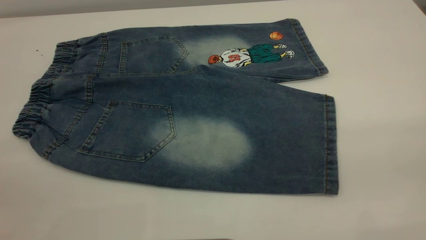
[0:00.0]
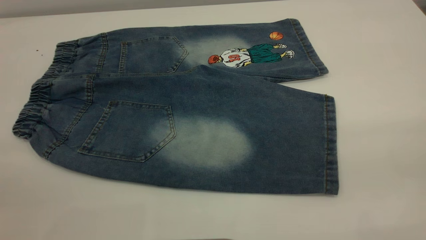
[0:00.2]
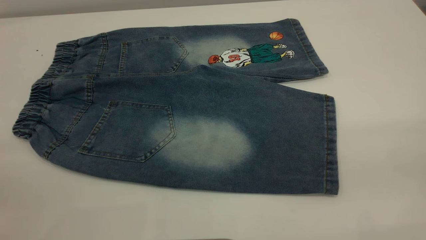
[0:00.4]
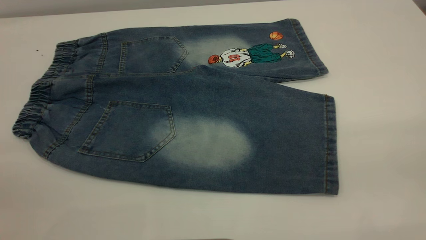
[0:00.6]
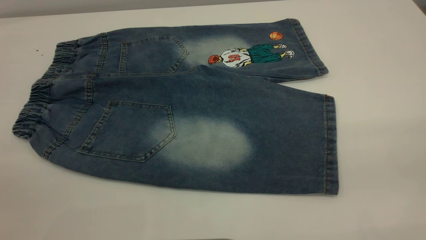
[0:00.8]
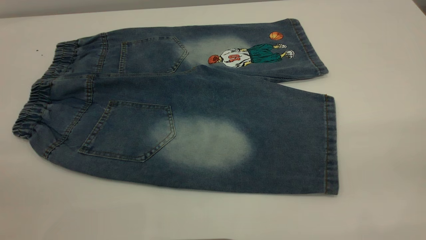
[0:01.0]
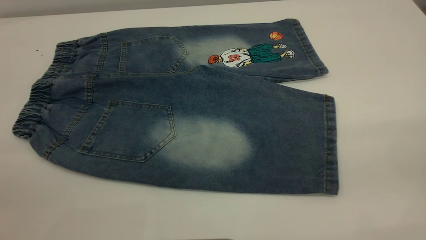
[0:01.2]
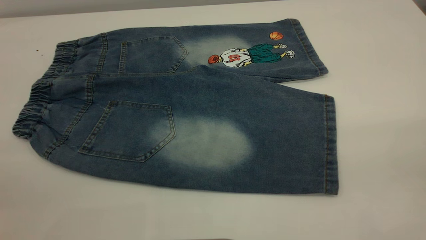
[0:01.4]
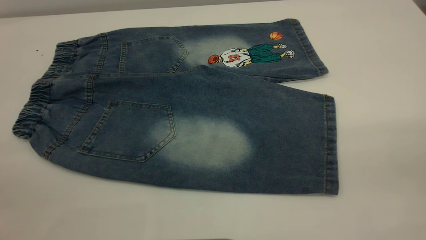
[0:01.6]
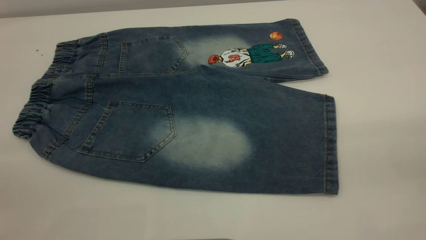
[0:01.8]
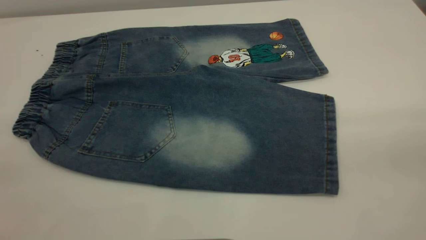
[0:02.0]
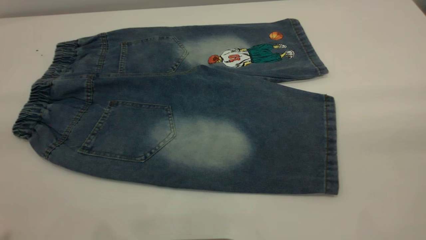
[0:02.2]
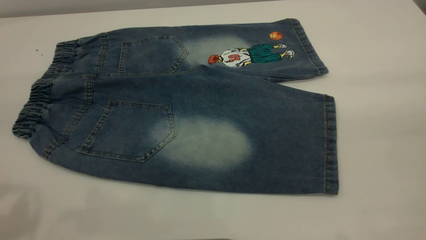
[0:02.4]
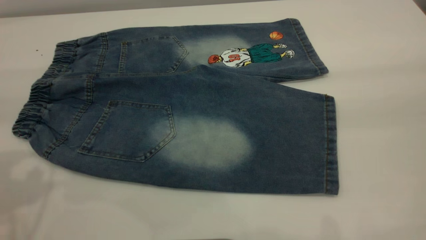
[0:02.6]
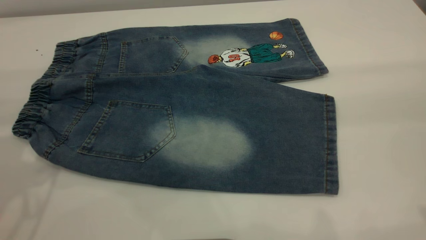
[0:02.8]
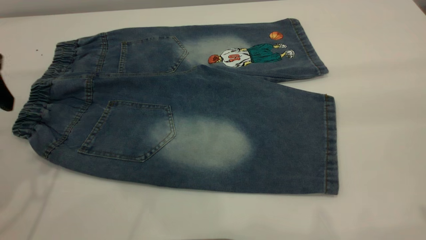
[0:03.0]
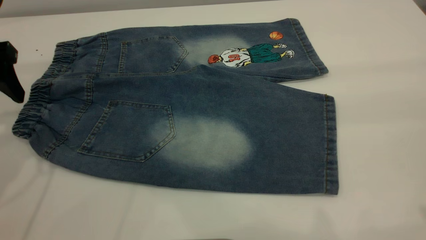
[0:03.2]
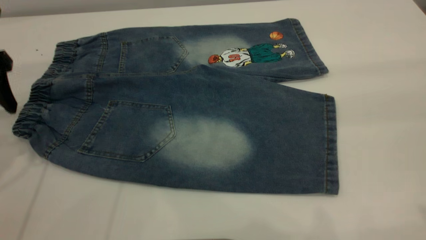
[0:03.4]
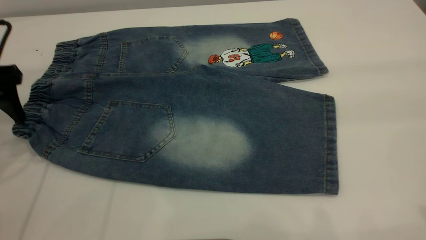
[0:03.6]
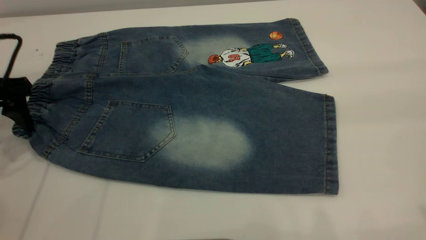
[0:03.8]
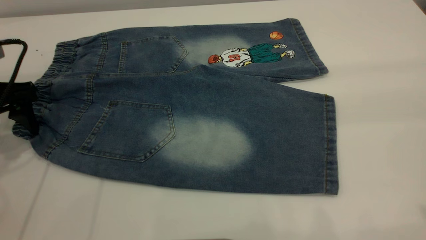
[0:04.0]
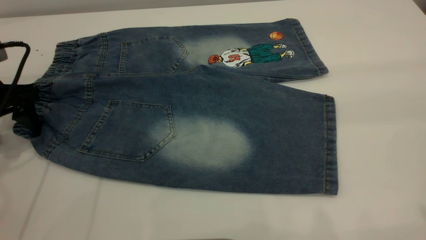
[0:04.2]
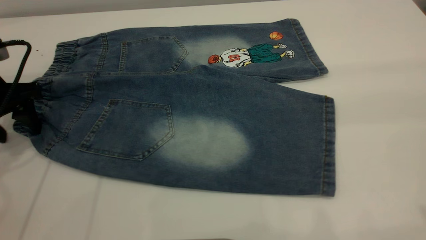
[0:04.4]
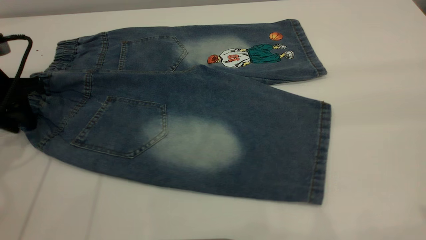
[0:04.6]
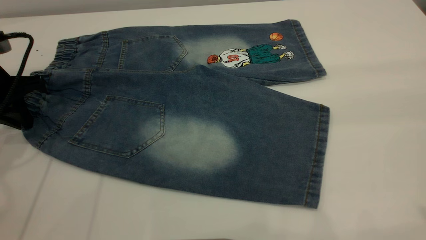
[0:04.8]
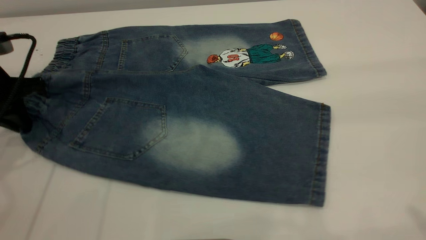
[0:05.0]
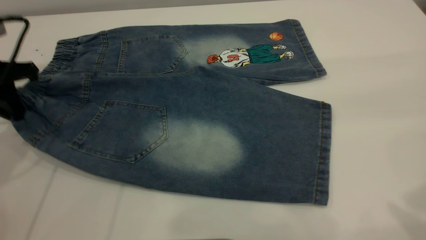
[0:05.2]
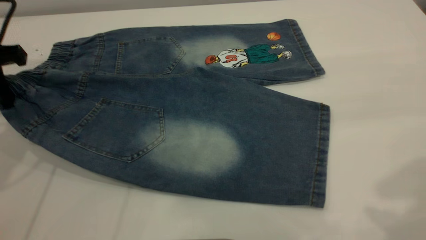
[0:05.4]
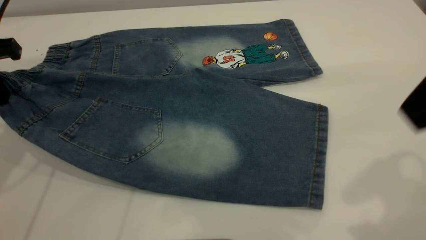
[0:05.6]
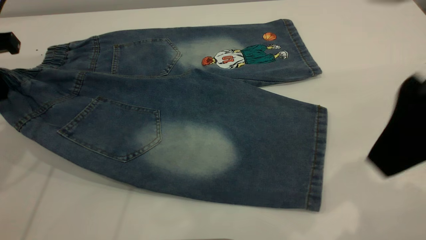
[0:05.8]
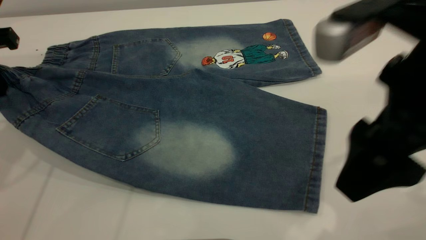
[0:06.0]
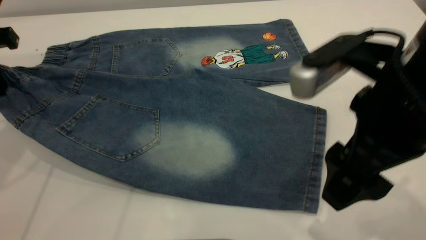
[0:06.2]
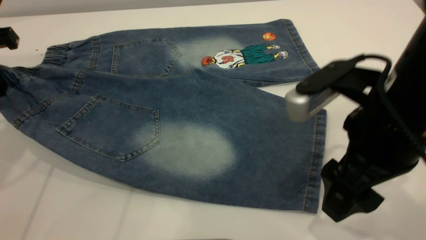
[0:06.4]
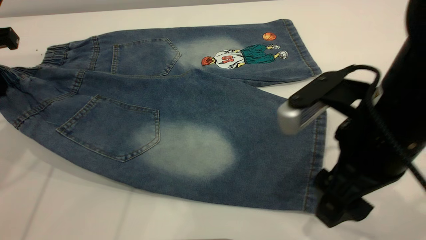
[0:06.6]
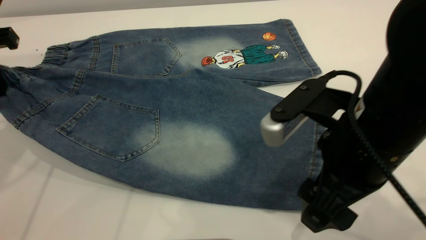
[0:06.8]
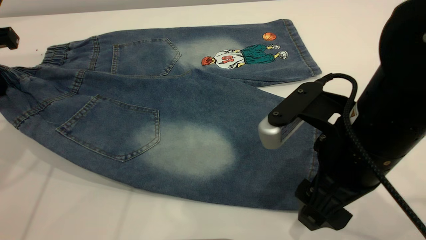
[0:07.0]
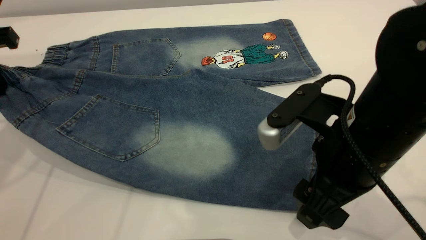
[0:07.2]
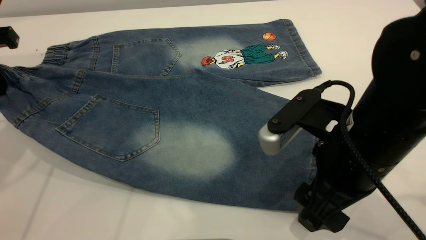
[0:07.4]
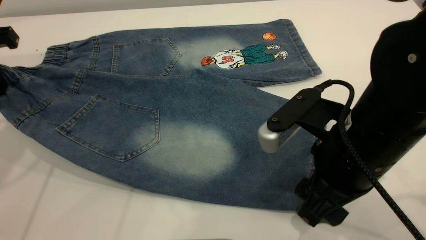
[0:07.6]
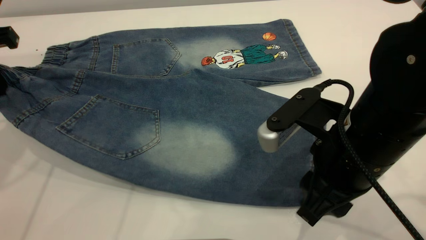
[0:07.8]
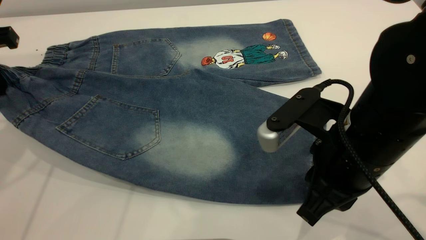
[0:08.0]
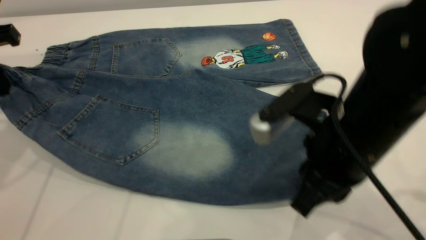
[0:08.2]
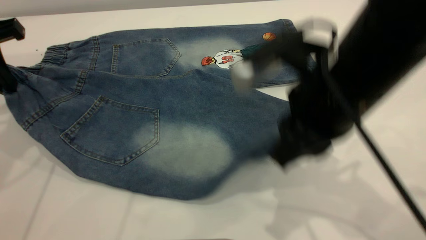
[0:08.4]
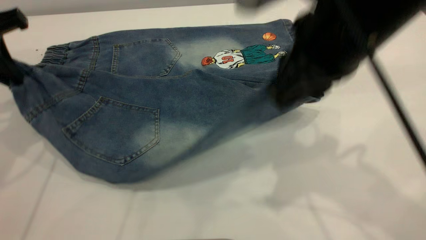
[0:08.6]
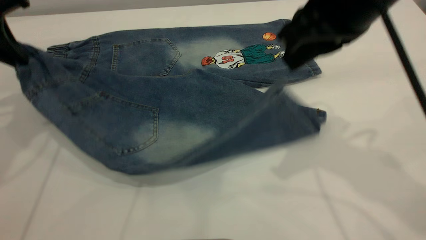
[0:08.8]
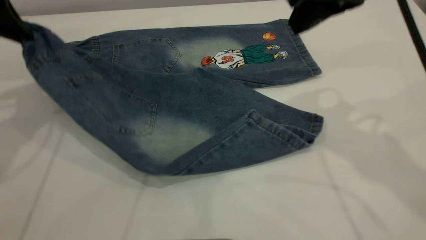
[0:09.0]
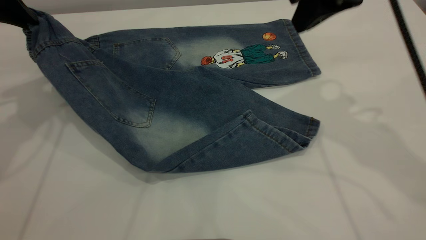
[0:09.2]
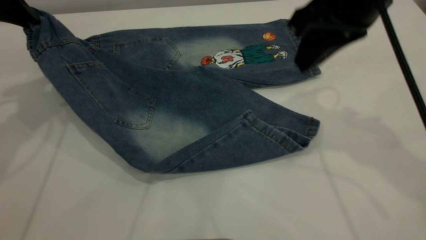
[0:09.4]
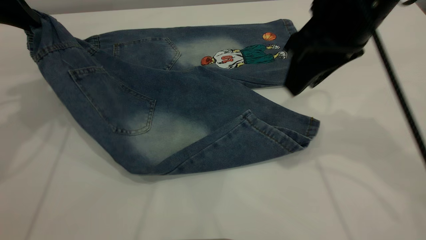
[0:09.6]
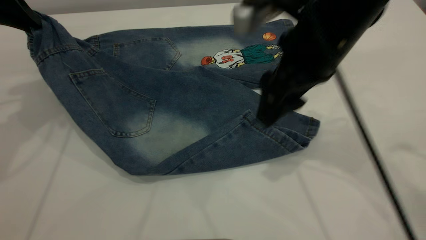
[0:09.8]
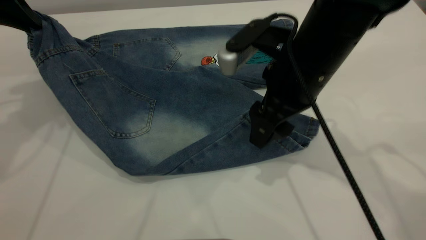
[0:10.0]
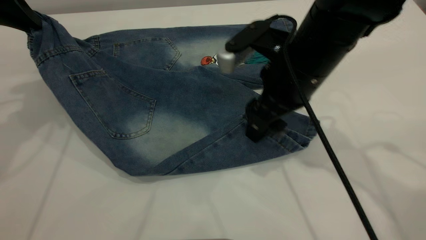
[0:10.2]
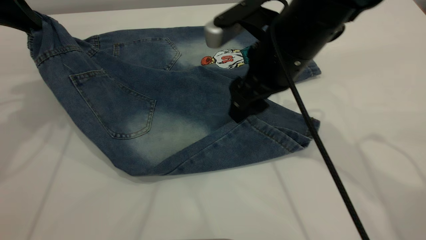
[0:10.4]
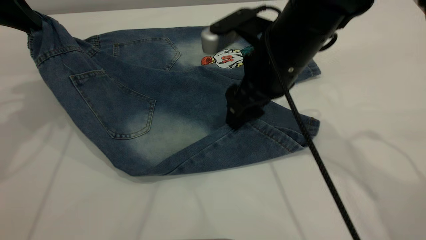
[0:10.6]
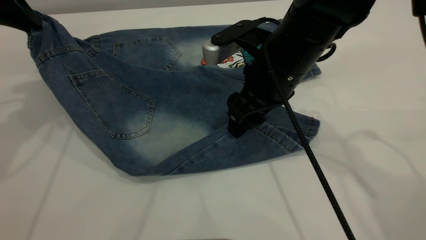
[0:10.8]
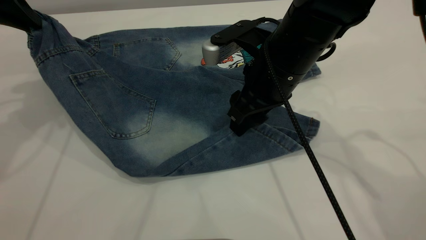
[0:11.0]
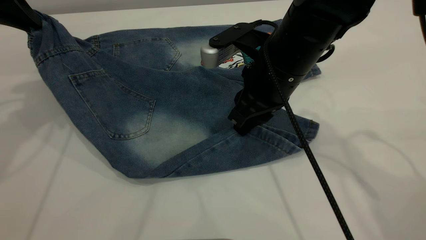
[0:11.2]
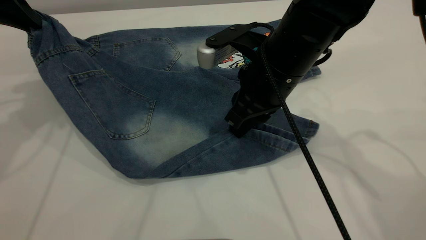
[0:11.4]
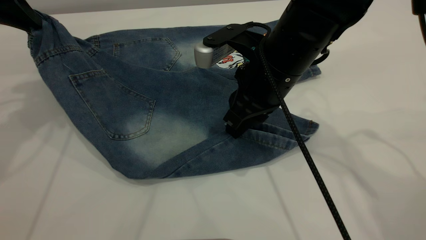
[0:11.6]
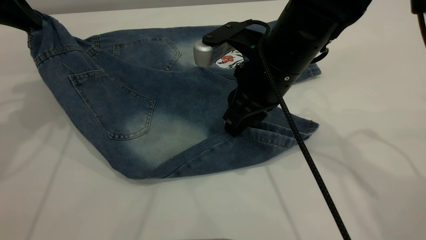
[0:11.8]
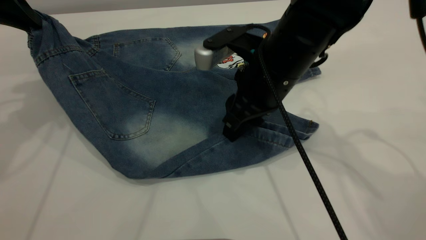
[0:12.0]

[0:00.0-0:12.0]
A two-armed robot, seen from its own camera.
0:00.0 to 0:01.6: Neither gripper changes place.
0:01.6 to 0:03.0: The left gripper goes about 30 cm forward and downward.
0:03.0 to 0:04.4: The left gripper goes some 10 cm downward and forward.
0:04.4 to 0:06.0: The right gripper moves downward, to the left and forward, about 20 cm; the left gripper travels upward by approximately 10 cm, and closes.
0:06.0 to 0:07.6: The right gripper shifts about 10 cm downward.
0:07.6 to 0:09.0: The right gripper travels upward and forward by approximately 20 cm, and closes up. The left gripper ends up some 5 cm from where it was.
0:09.0 to 0:10.4: The right gripper is displaced downward and to the left by roughly 15 cm, and opens.
0:10.4 to 0:12.0: The right gripper closes up.

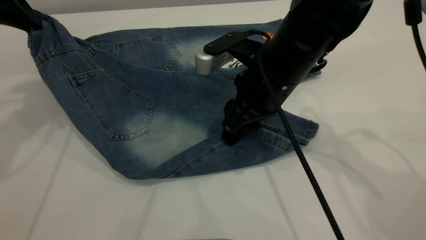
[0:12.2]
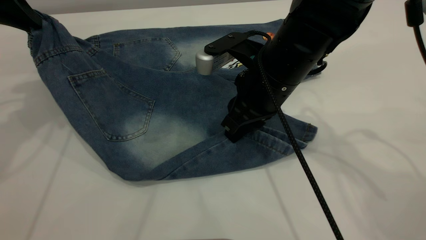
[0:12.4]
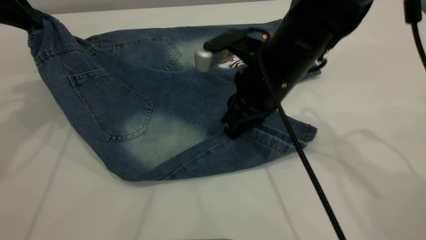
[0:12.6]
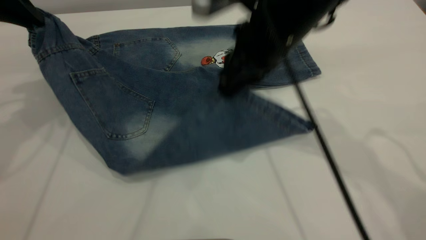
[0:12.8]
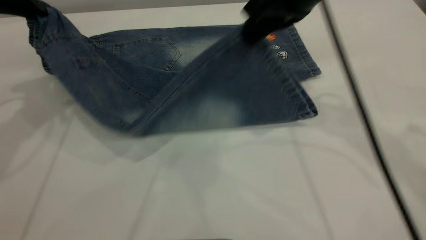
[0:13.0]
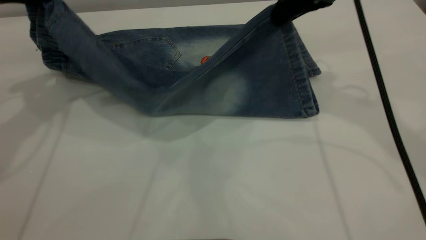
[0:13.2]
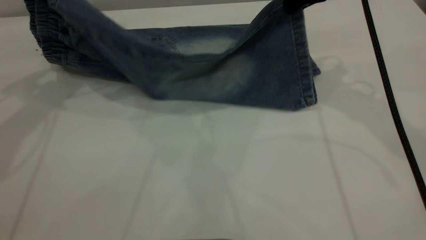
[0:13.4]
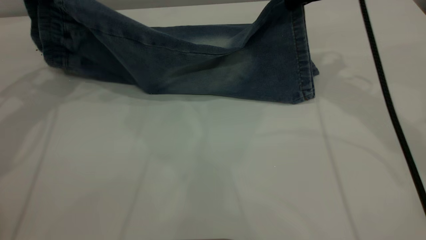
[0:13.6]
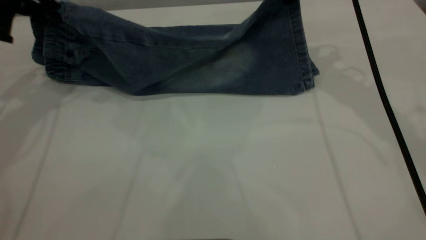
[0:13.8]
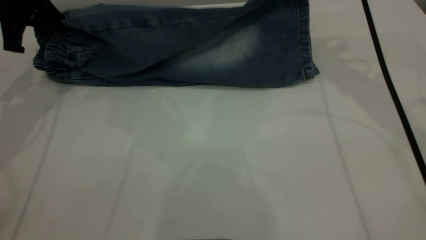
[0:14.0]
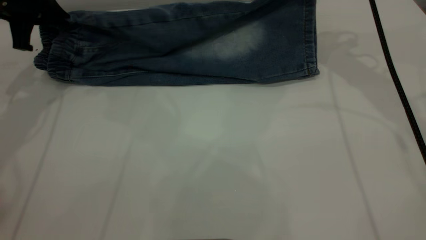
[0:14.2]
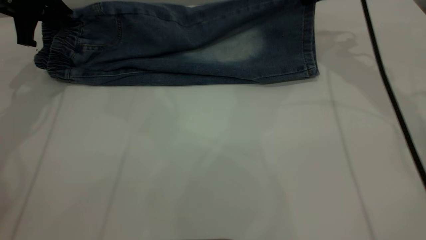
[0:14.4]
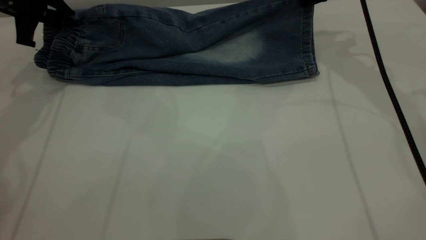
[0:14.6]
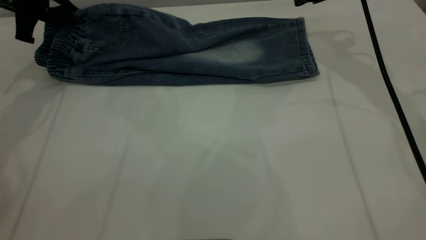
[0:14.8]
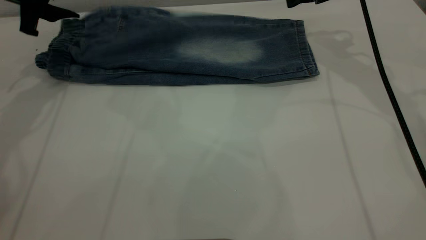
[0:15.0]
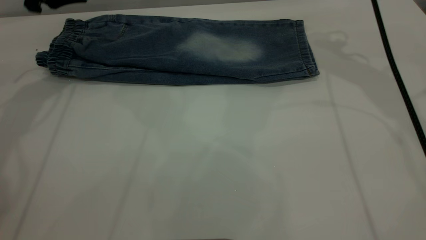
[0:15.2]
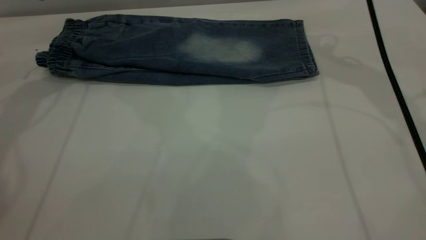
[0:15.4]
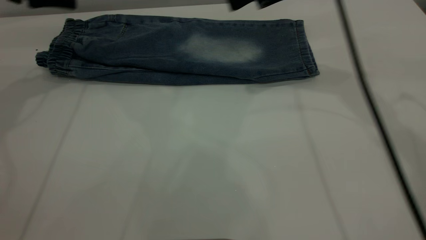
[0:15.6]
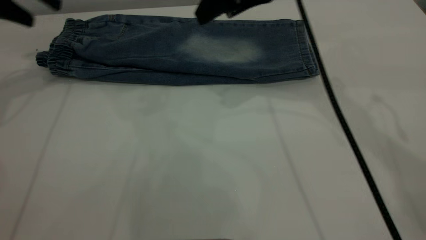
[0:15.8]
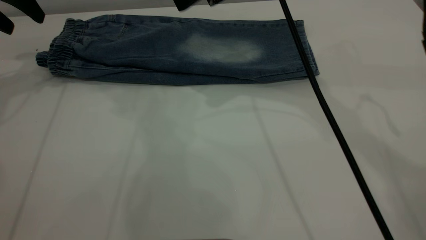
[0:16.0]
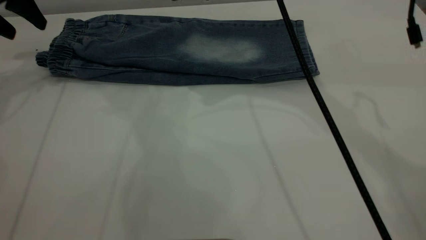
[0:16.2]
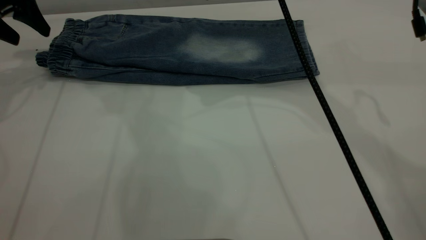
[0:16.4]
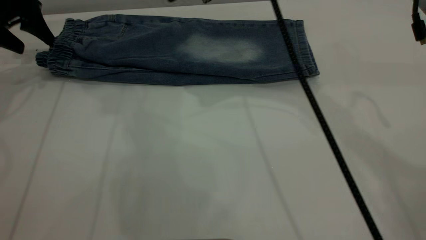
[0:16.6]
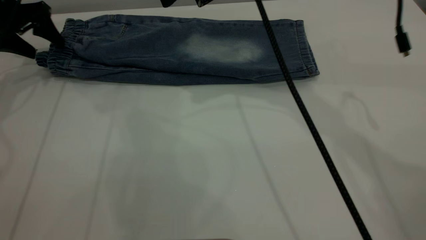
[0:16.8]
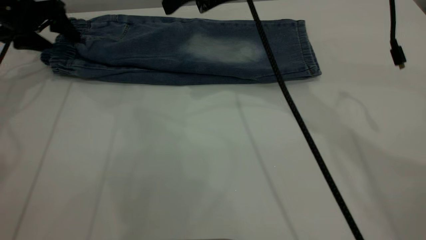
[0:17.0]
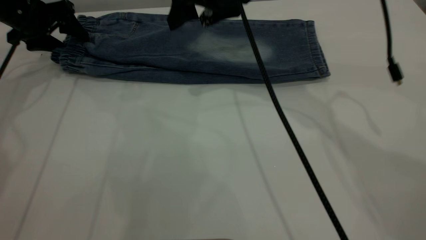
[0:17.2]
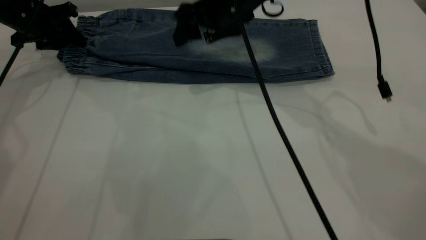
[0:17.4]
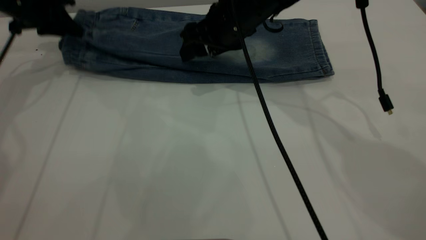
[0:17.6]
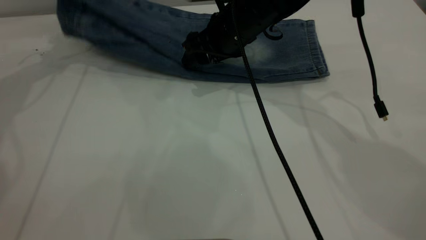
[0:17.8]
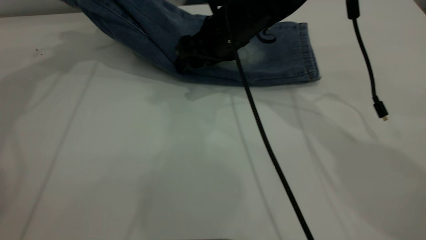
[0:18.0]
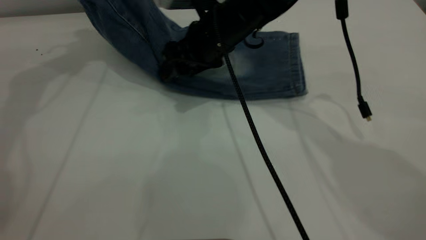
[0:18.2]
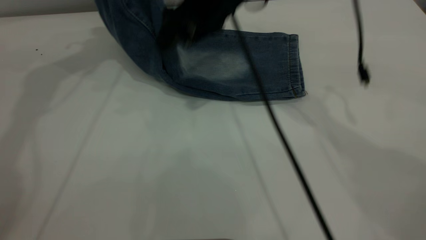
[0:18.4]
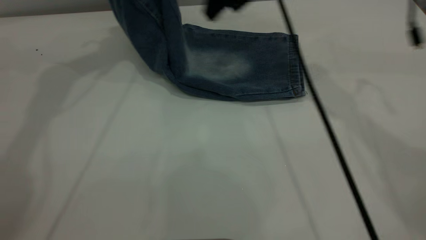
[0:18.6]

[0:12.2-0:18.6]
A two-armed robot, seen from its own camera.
Step, 0:12.2 to 0:15.4: Fold the bottom of the pants upward.
0:12.2 to 0:13.8: The left gripper ends up some 5 cm from where it was, while the right gripper is displaced to the right, forward and upward by approximately 20 cm.
0:13.8 to 0:15.4: The left gripper travels forward by approximately 5 cm, and opens; the right gripper opens up.
0:15.4 to 0:17.0: The left gripper travels downward and to the left by about 10 cm; the right gripper moves to the left, about 15 cm.
0:17.0 to 0:18.6: The right gripper shifts about 5 cm to the right, and goes downward and returns, roughly 10 cm each way. The left gripper goes roughly 25 cm upward and to the right, and closes.
